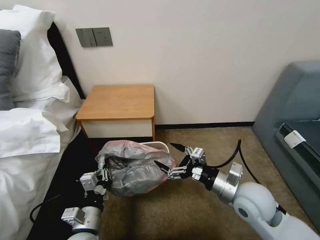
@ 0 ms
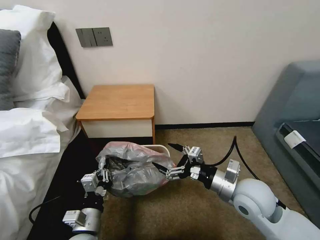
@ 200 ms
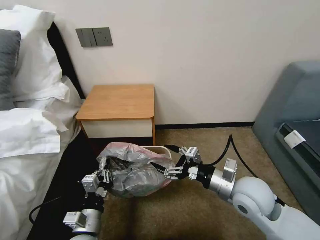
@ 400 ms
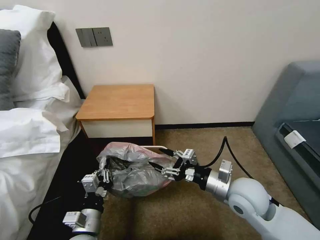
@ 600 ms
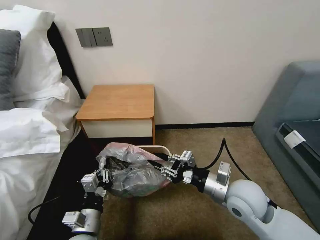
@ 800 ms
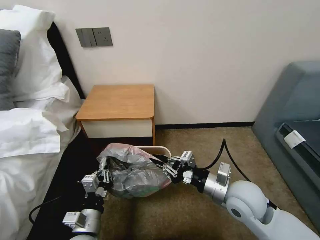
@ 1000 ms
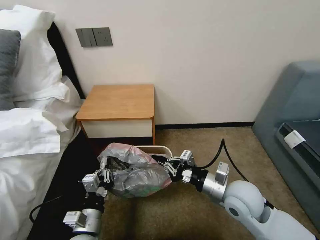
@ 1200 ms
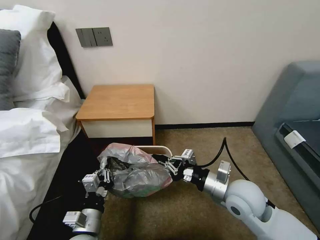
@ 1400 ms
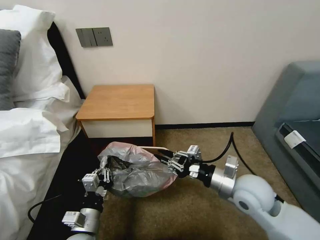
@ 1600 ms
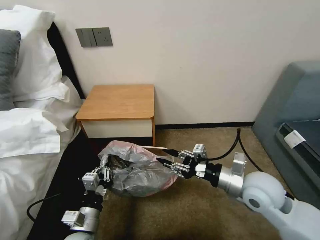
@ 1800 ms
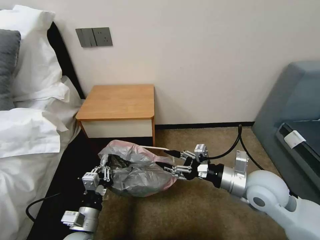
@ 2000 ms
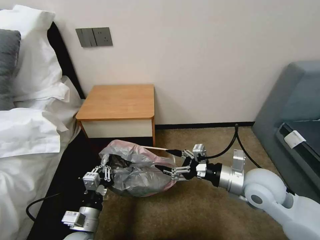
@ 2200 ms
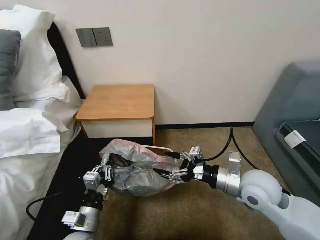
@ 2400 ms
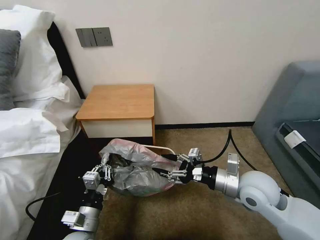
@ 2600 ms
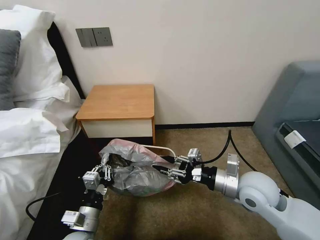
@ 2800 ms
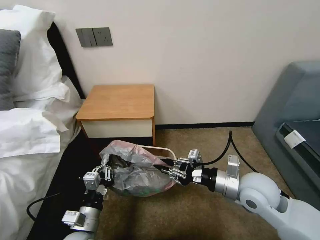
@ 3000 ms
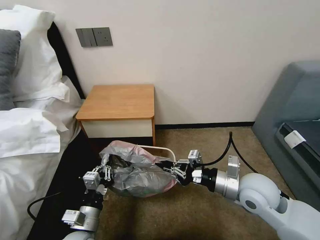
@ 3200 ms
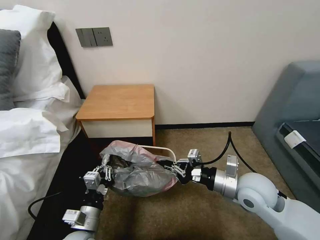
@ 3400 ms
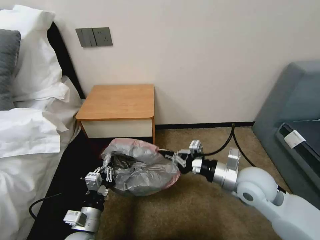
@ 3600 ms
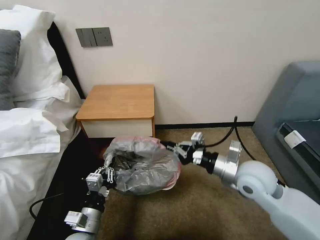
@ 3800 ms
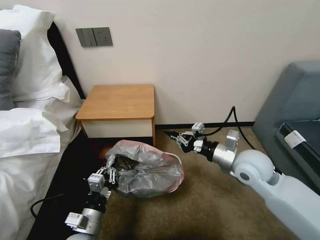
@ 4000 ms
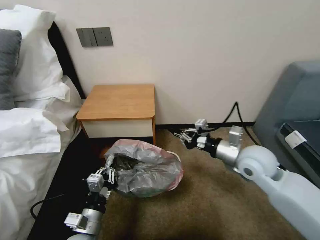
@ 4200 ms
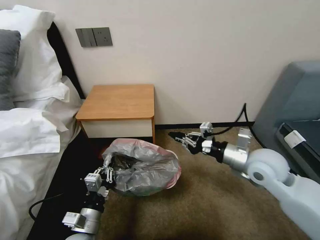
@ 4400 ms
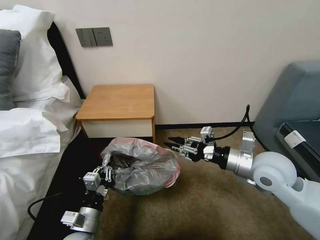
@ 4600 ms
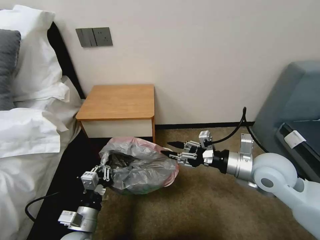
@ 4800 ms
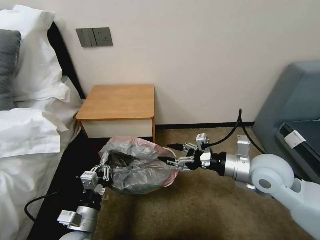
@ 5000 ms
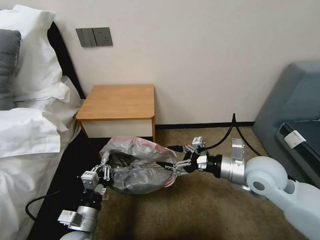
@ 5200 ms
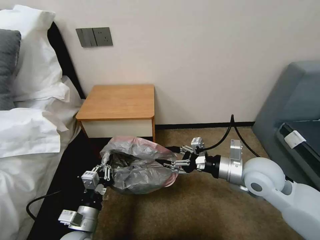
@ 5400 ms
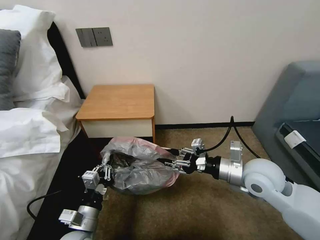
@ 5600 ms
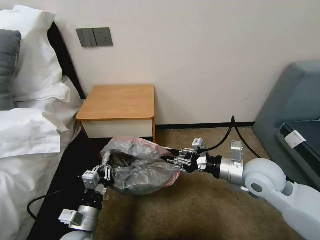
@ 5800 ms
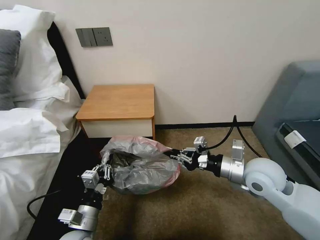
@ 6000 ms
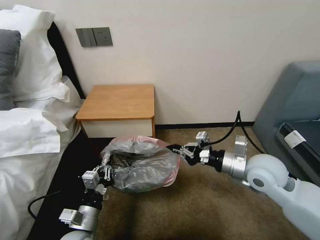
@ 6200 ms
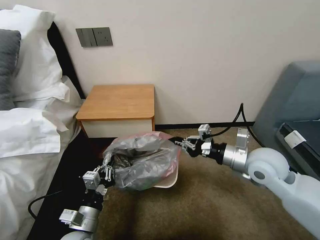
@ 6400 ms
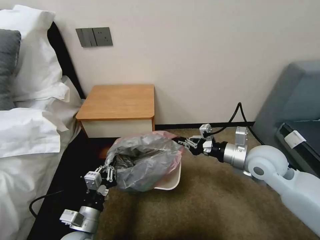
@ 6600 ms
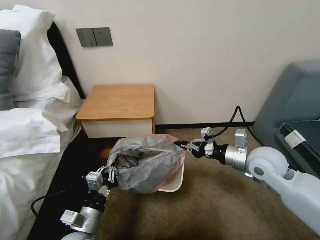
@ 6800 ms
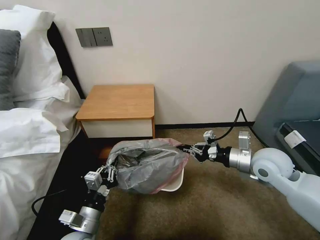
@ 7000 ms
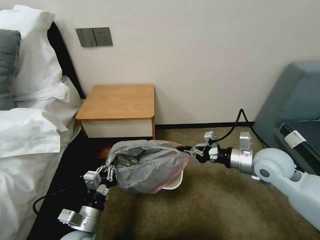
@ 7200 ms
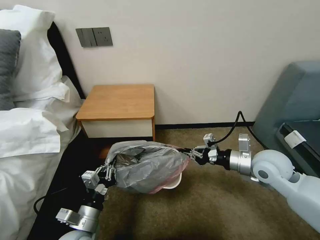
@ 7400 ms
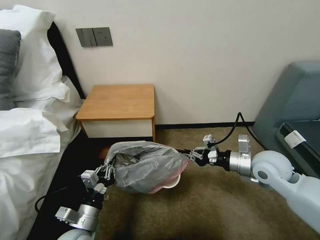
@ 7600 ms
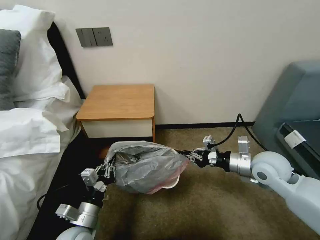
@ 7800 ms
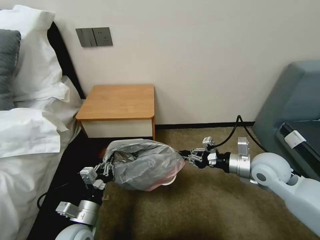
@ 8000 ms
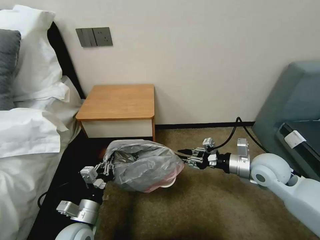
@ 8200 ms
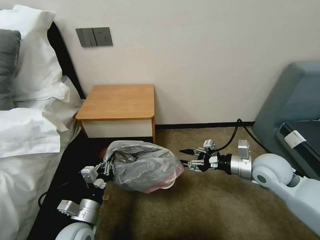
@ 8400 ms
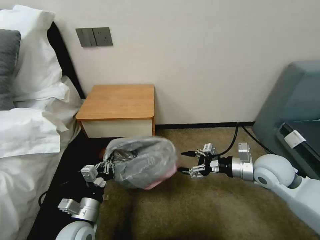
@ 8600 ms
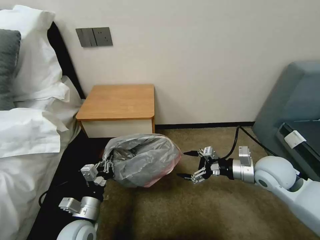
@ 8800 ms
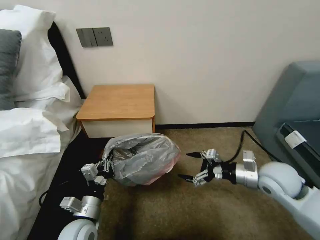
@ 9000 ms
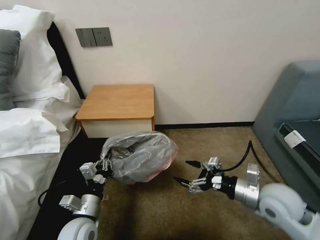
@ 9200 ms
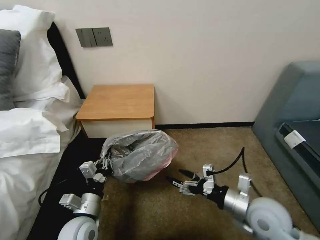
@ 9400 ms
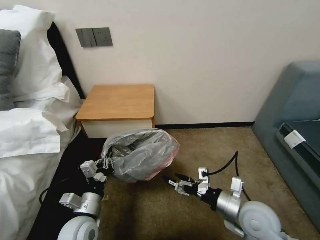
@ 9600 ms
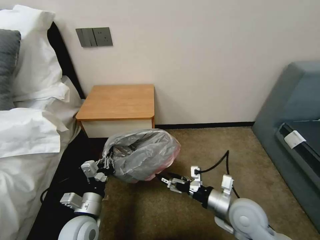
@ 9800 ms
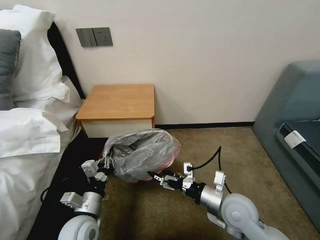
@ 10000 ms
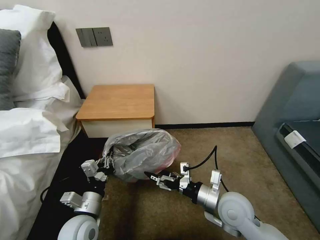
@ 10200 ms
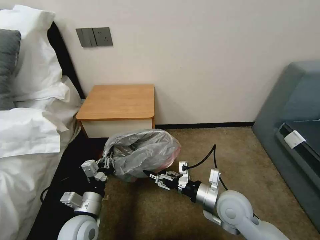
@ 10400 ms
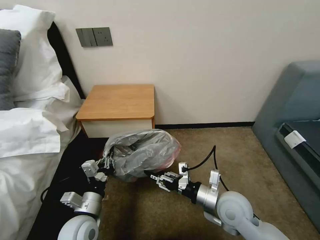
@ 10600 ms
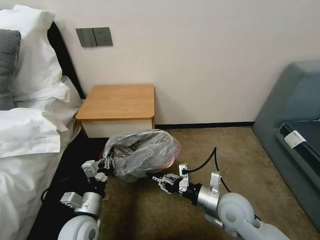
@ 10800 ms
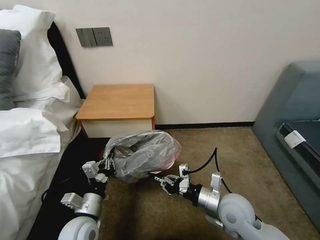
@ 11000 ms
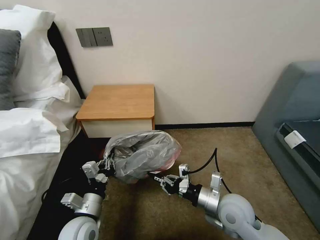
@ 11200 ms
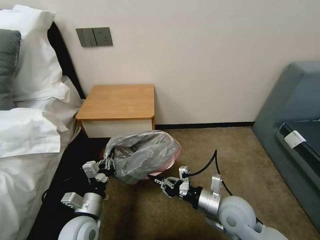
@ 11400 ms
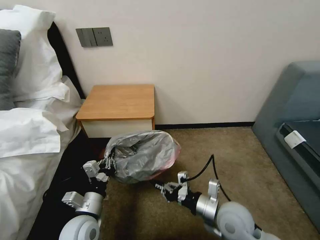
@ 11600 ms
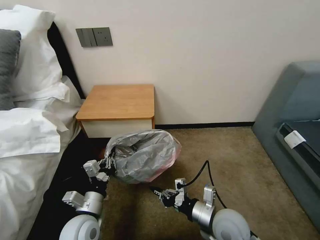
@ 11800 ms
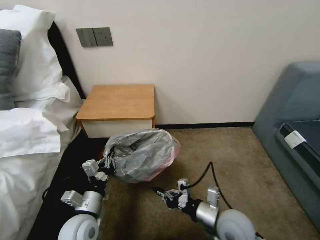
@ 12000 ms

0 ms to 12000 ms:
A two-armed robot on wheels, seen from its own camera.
Task of the whole recording: Pick up the garbage bag from the table and place it over the trash can.
0 ms to 1600 ms: The right gripper closes its fingers.
1600 ms to 3000 ms: The right gripper opens and closes again.
3000 ms to 4400 ms: The right gripper is displaced forward by roughly 5 cm.
4400 ms to 6000 ms: The right gripper opens, then closes again.
6000 ms to 7600 ms: The right gripper changes place by roughly 5 cm.
7600 ms to 9000 ms: The right gripper opens its fingers.
9000 ms to 10400 ms: The right gripper heads to the left, downward and backward, covering about 15 cm.
10400 ms to 12000 ms: The right gripper moves some 5 cm, and closes up.

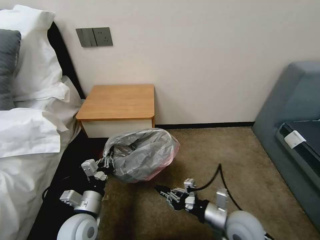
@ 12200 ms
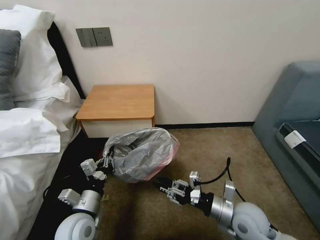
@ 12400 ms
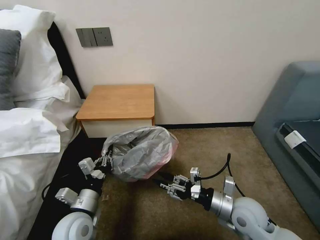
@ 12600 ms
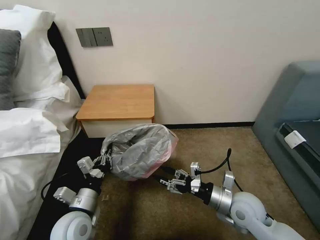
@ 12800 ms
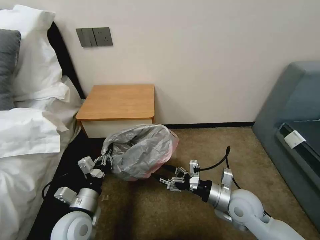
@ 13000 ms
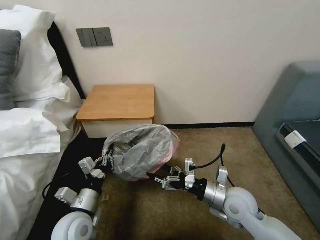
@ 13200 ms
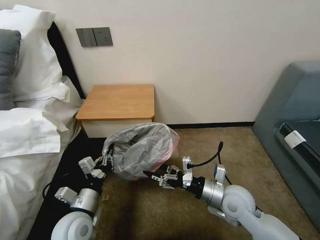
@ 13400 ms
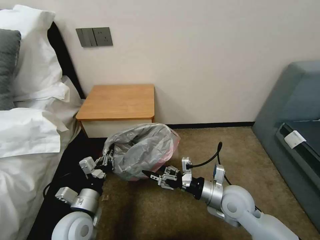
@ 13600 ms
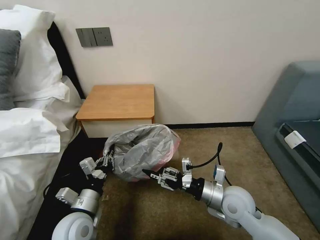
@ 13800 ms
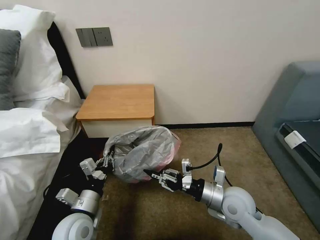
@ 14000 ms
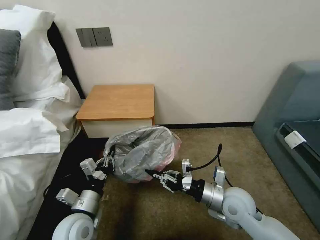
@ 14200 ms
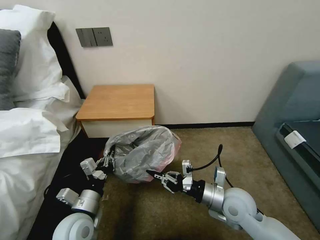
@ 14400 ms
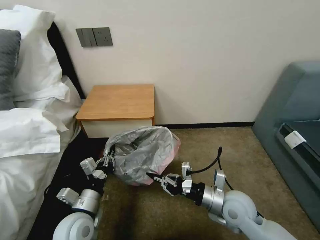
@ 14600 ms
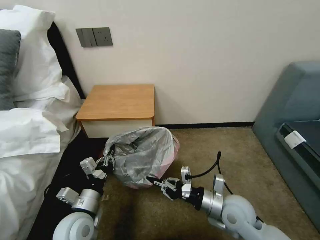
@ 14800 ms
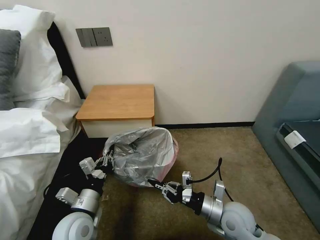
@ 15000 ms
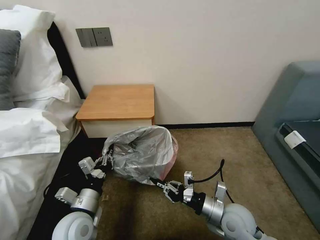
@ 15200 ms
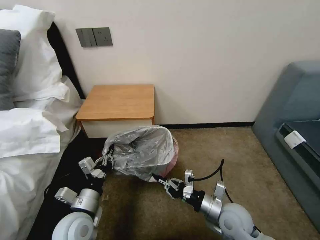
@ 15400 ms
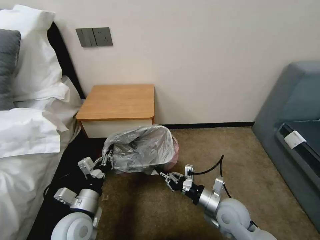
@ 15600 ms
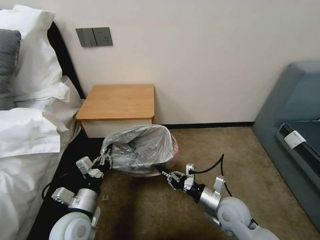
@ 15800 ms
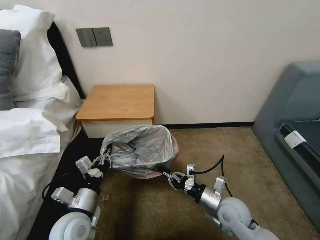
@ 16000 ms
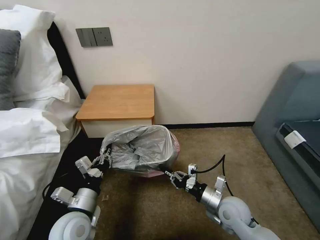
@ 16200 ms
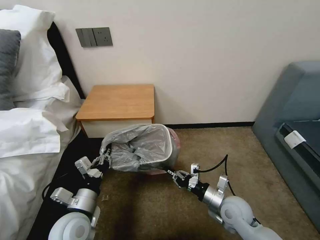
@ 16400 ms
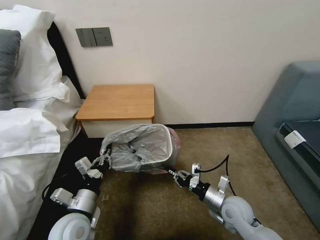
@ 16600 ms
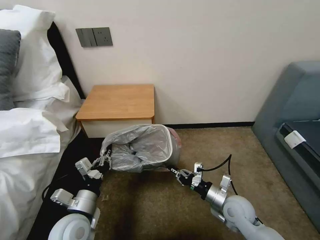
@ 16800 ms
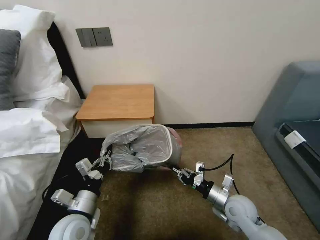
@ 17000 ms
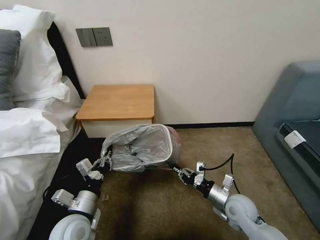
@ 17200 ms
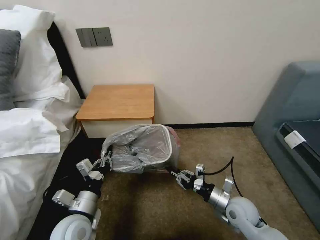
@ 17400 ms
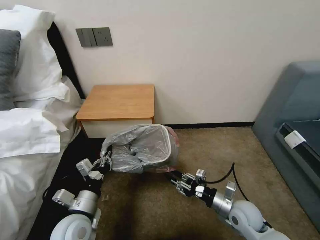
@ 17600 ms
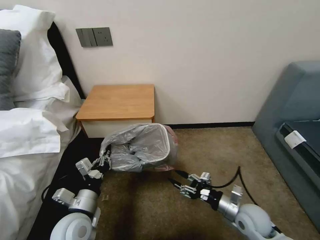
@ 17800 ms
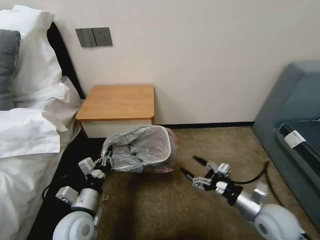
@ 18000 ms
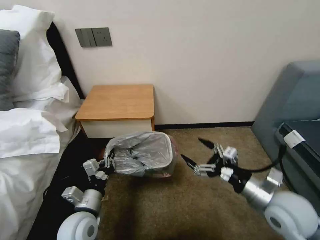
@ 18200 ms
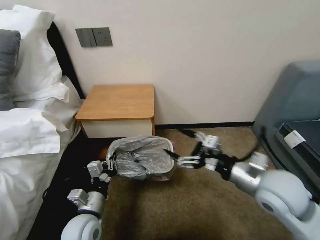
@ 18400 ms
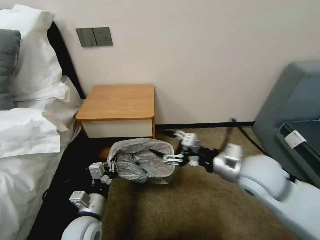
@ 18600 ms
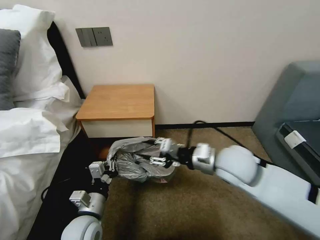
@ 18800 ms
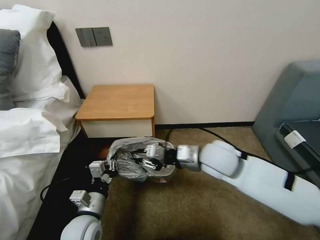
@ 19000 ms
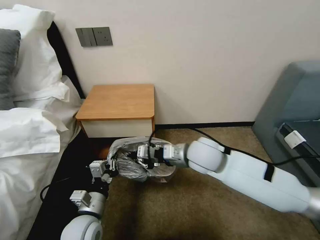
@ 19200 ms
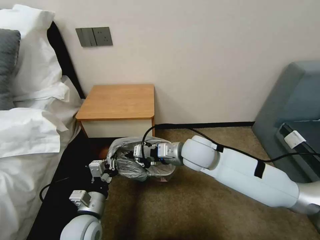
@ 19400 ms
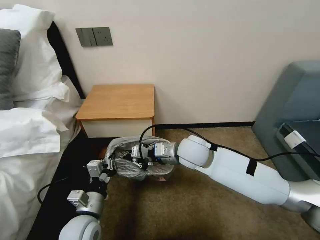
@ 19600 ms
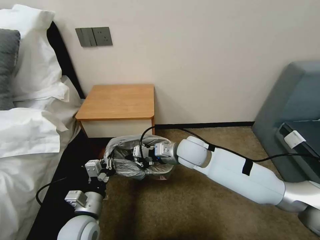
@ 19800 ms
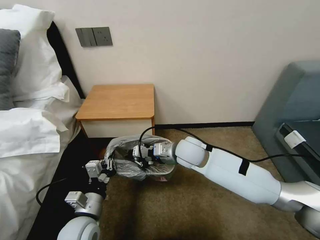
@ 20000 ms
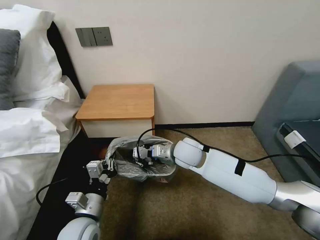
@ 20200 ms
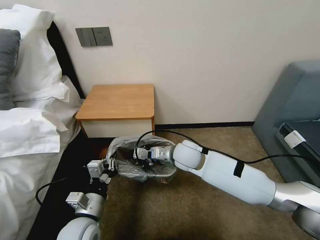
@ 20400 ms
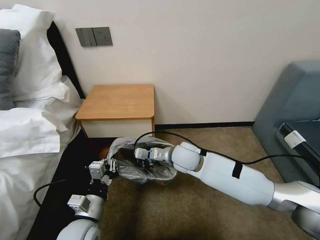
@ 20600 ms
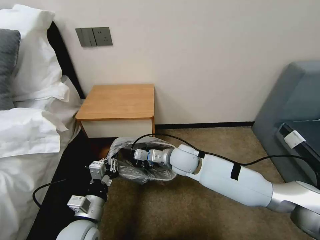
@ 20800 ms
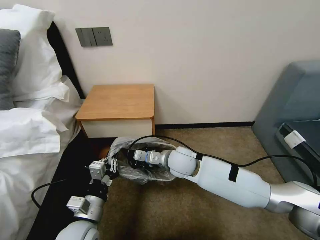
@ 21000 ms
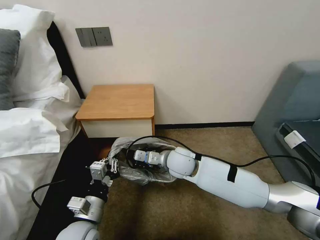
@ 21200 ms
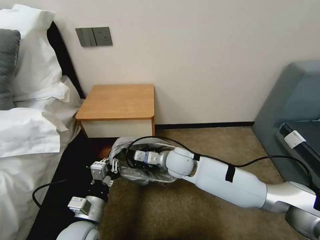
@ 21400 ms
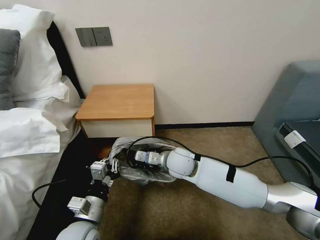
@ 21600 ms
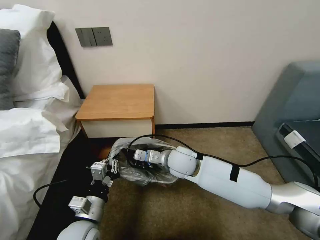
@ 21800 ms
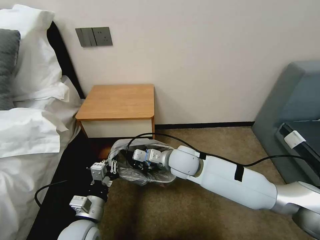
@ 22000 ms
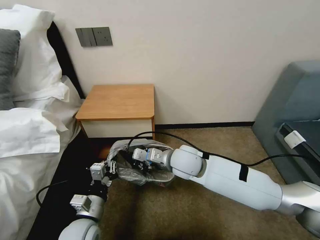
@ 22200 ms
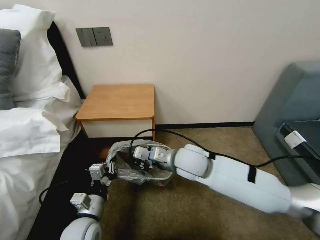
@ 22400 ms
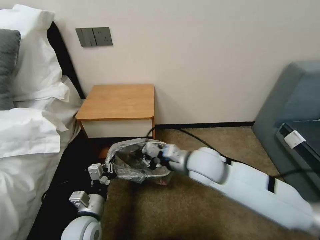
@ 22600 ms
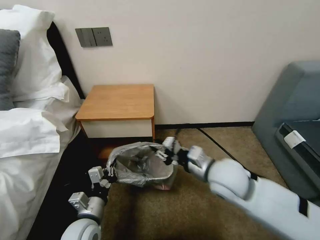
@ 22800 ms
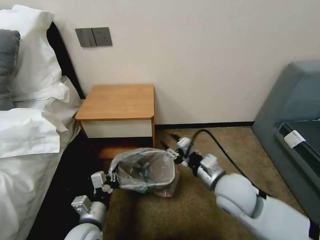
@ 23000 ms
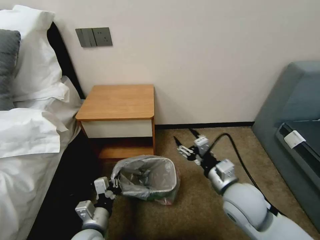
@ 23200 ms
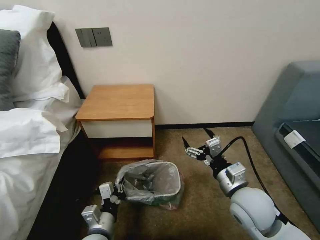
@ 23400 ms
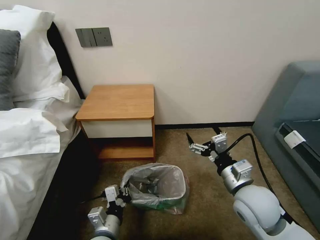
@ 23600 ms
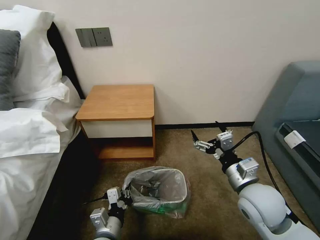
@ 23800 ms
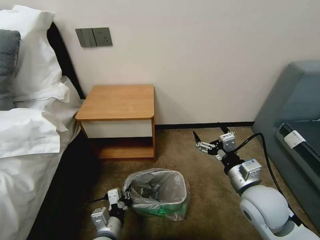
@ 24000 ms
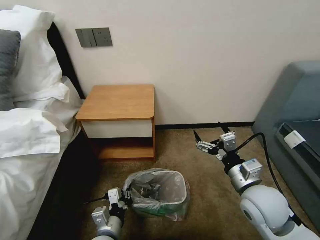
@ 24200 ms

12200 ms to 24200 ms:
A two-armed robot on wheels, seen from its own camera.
Task of the whole recording: Pick up the garbage bag from the table and place it over the trash can.
12200 ms to 13800 ms: The right gripper heads forward, covering about 5 cm, and opens its fingers.
13800 ms to 15200 ms: The right gripper changes place by roughly 5 cm, and closes up.
15200 ms to 16600 ms: The right gripper changes place by approximately 5 cm.
16600 ms to 18200 ms: The right gripper shifts approximately 15 cm upward and to the right, and opens.
18200 ms to 19800 ms: The right gripper heads to the left and forward, covering some 30 cm, and closes.
19800 ms to 21200 ms: The right gripper shifts by roughly 5 cm.
21200 ms to 22600 ms: The right gripper is displaced upward, to the right and backward by some 10 cm.
22600 ms to 24200 ms: The left gripper is displaced to the right by about 5 cm. Meanwhile the right gripper is displaced to the right and backward by some 15 cm, and opens.
